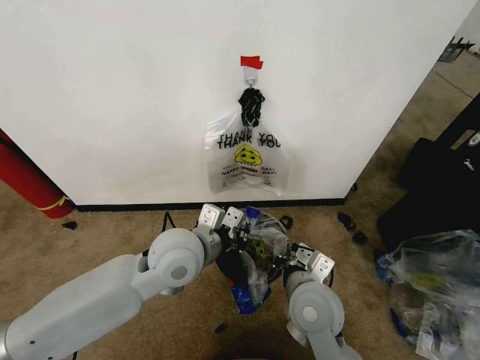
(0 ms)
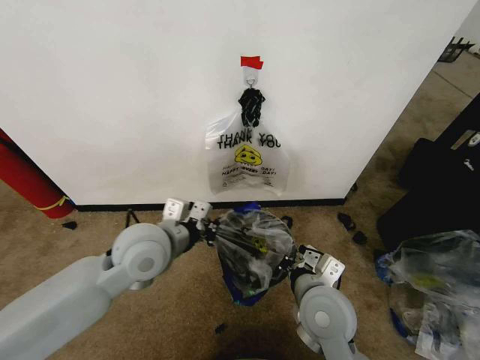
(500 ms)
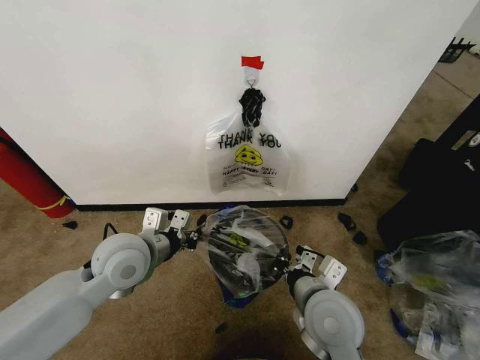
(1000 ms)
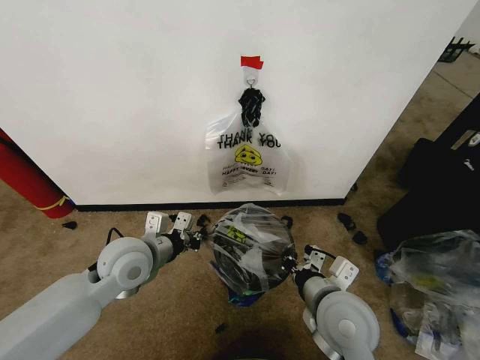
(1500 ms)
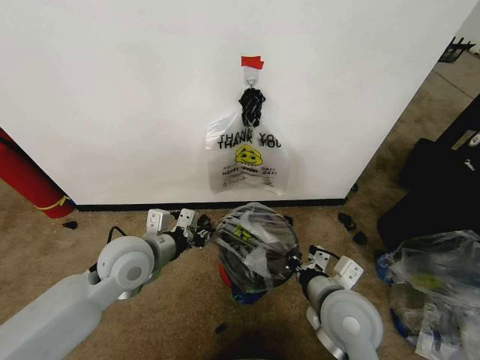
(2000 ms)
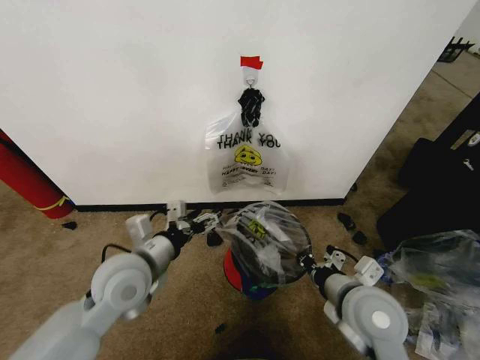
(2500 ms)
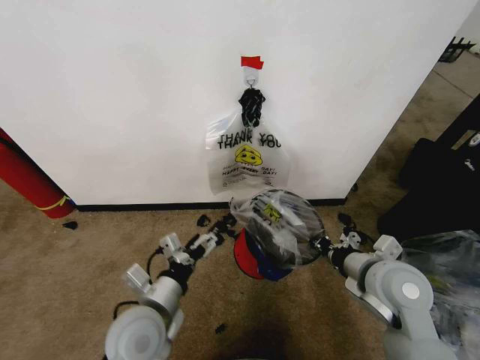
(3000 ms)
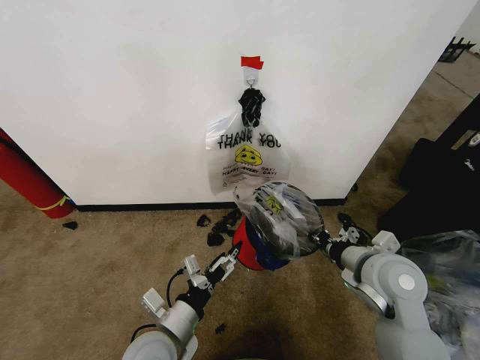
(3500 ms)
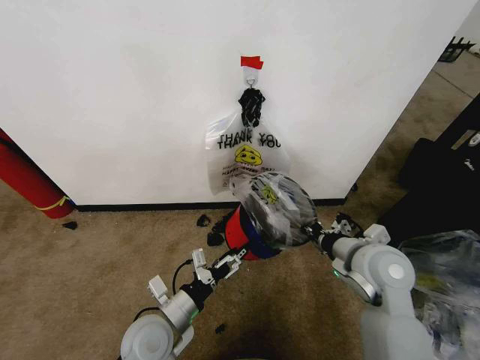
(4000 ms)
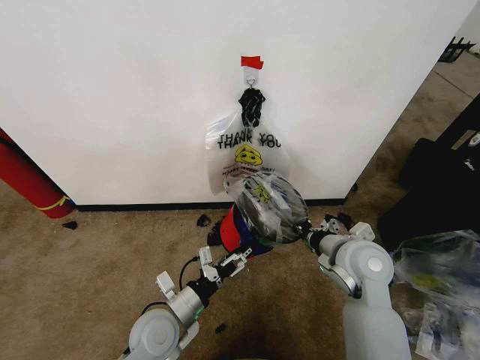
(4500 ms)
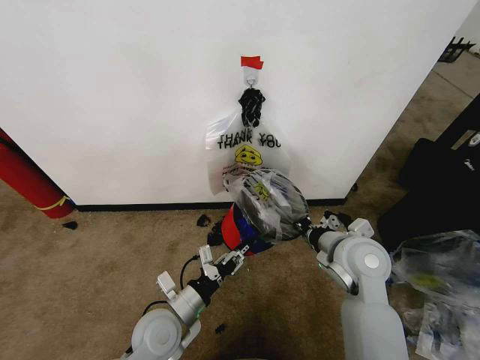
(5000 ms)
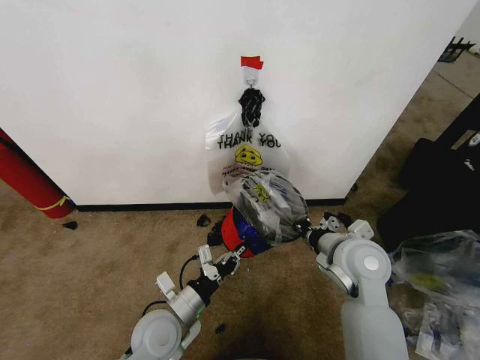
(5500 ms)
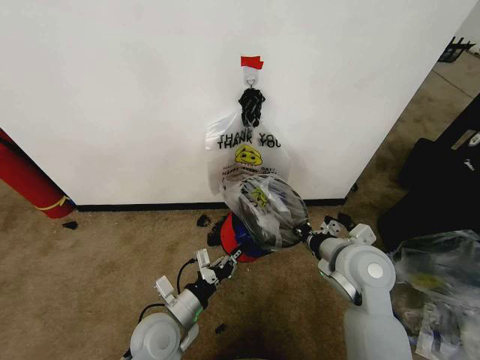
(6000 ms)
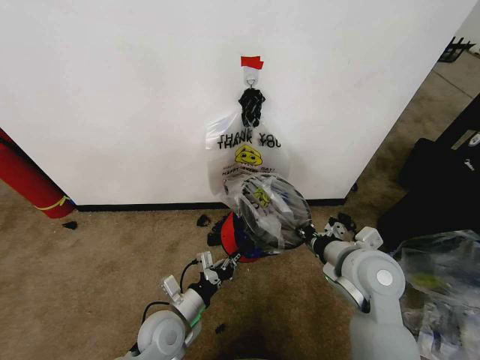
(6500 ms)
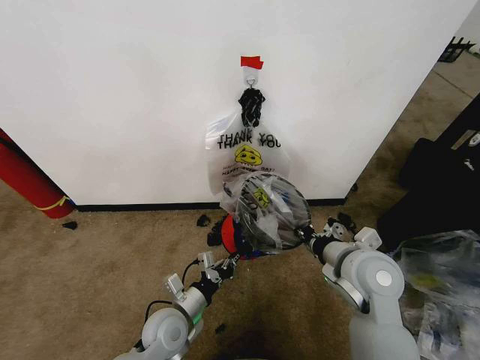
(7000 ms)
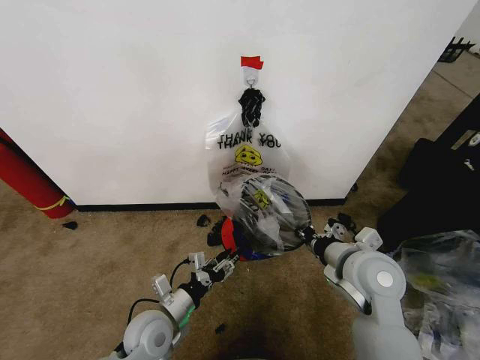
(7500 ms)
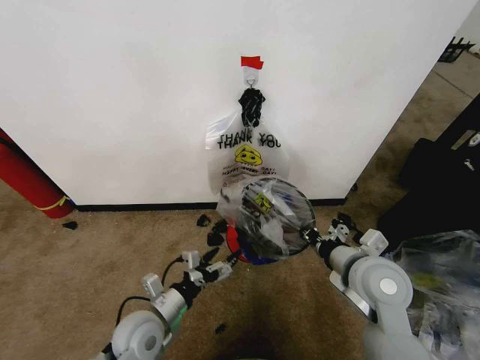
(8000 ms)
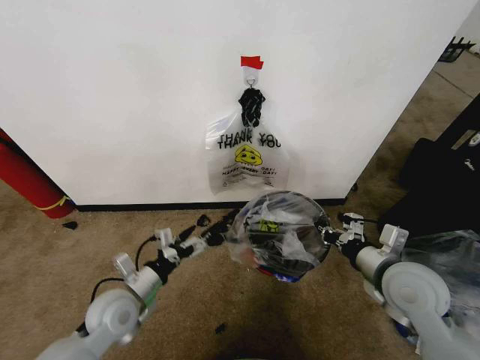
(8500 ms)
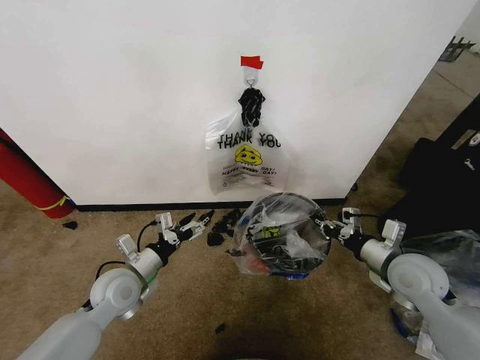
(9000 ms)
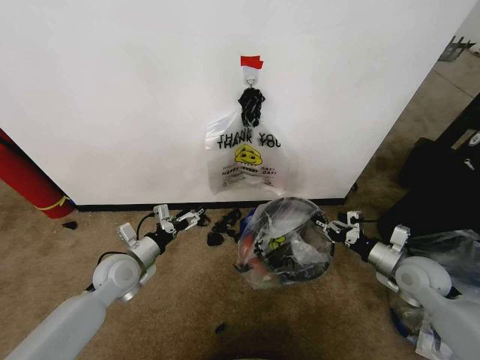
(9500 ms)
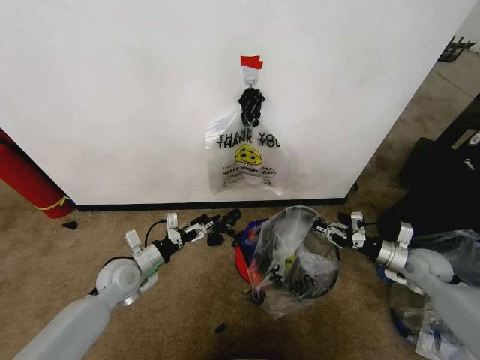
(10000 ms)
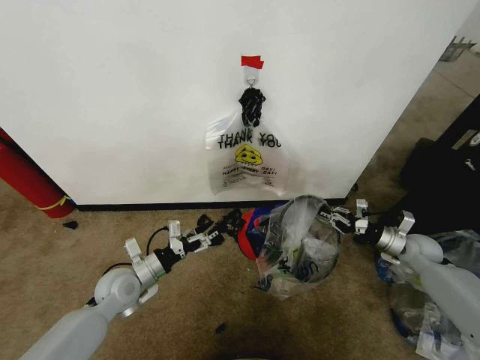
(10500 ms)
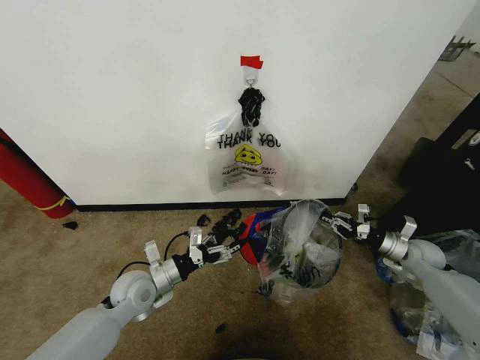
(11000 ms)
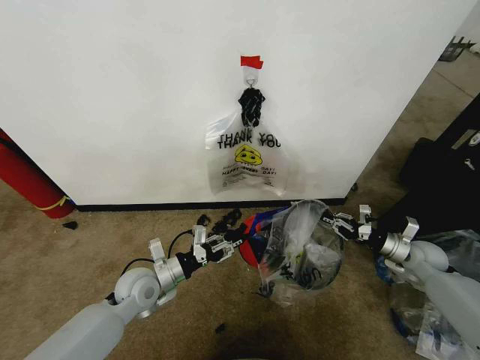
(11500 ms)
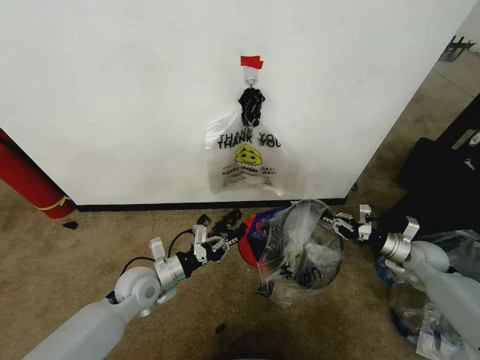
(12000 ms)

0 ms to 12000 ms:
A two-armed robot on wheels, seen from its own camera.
Task of the whole recording: Pick up the garbage bag from the wall and place it over the trash bin.
0 ms to 2000 ms: The left gripper heads to the left, covering approximately 10 cm, while the right gripper changes place by approximately 5 cm.
2000 ms to 4000 ms: The left gripper travels downward and backward by about 15 cm, and opens up. Meanwhile the right gripper shifts about 10 cm to the right and forward.
4000 ms to 6000 ms: The left gripper closes up.
6000 ms to 8000 ms: The left gripper opens.
8000 ms to 10000 ms: The right gripper heads to the right and downward, covering some 25 cm. Meanwhile the left gripper moves forward and to the left, approximately 15 cm.
10000 ms to 12000 ms: The left gripper travels to the right by about 5 cm, and closes its fingers, while the right gripper shifts by about 5 cm.

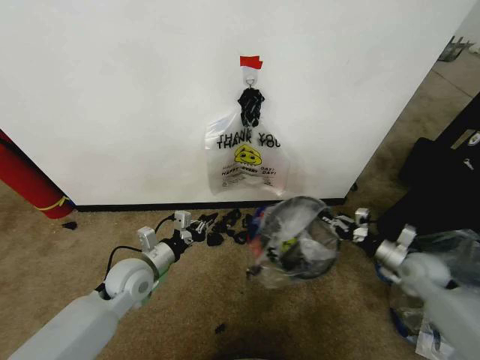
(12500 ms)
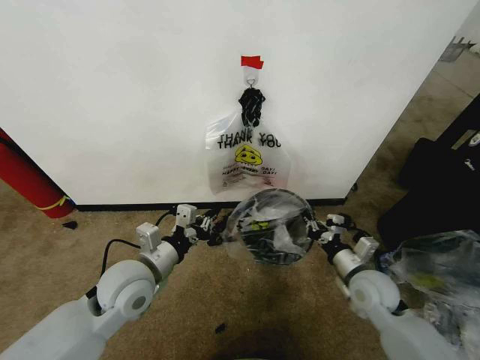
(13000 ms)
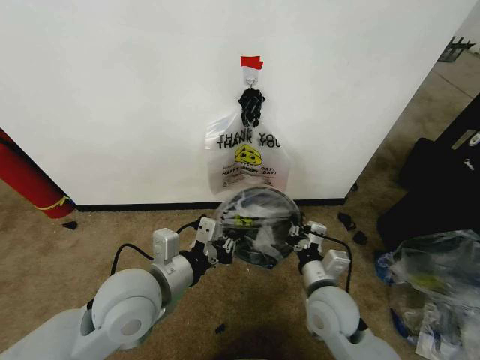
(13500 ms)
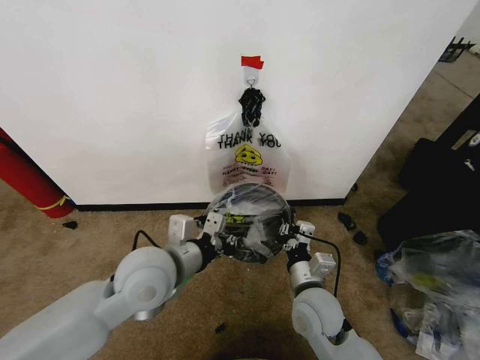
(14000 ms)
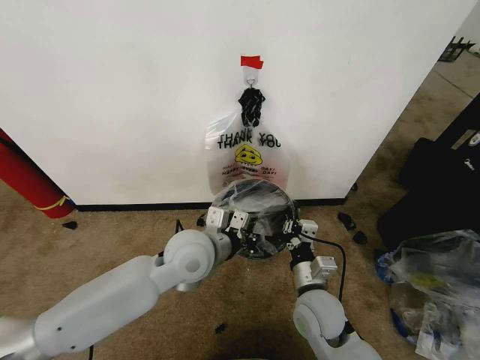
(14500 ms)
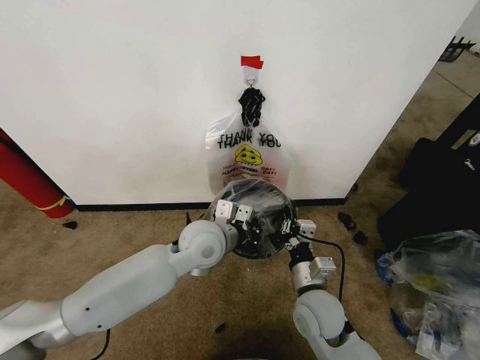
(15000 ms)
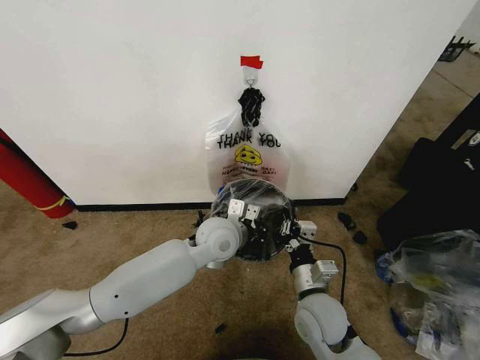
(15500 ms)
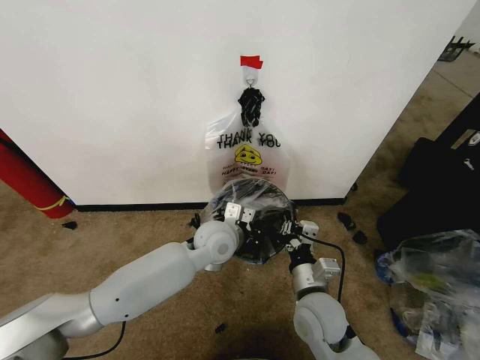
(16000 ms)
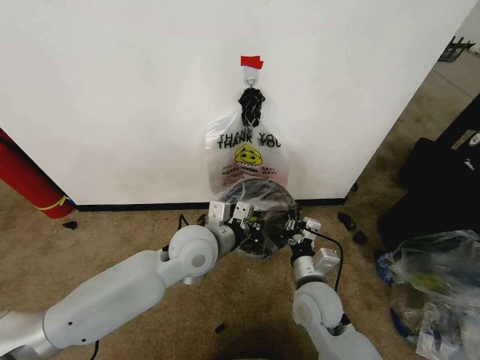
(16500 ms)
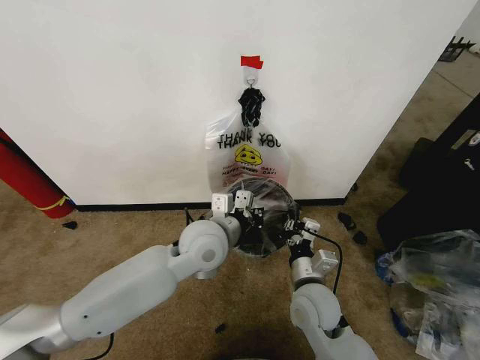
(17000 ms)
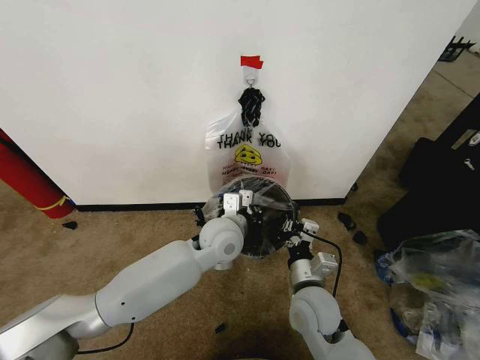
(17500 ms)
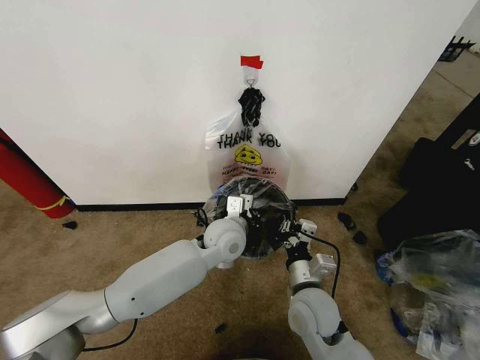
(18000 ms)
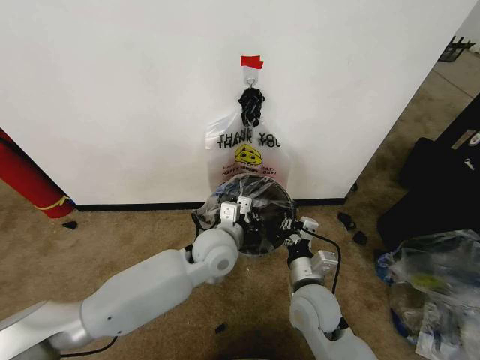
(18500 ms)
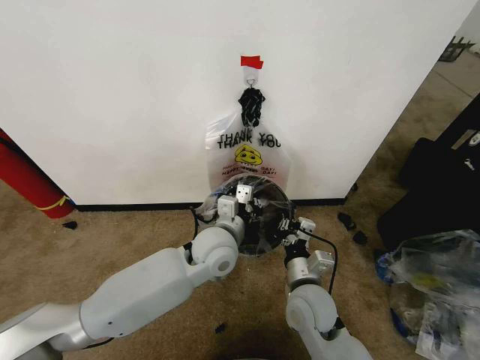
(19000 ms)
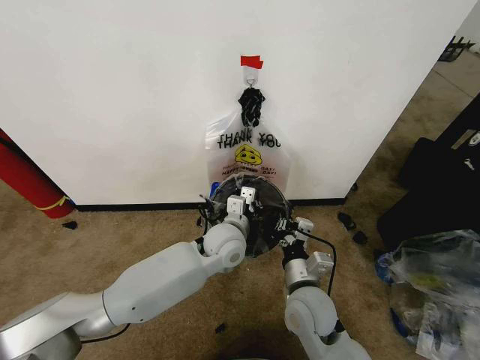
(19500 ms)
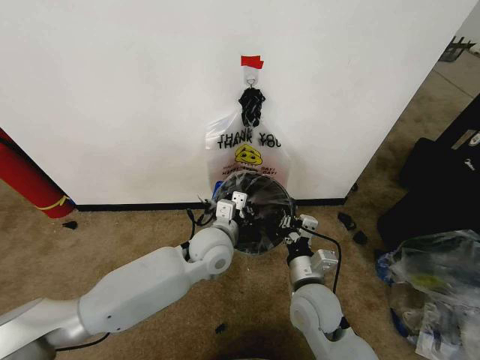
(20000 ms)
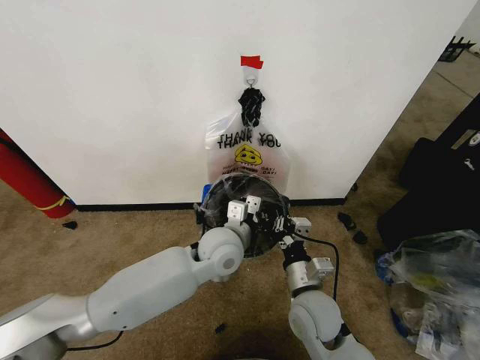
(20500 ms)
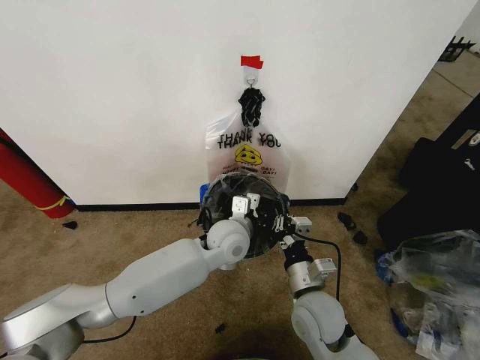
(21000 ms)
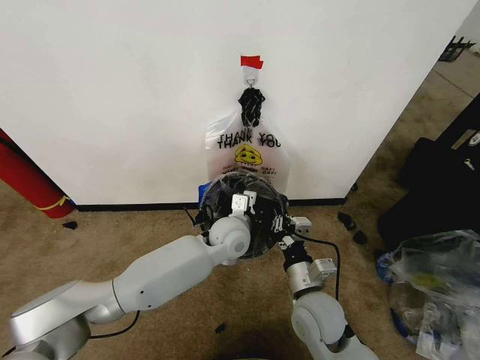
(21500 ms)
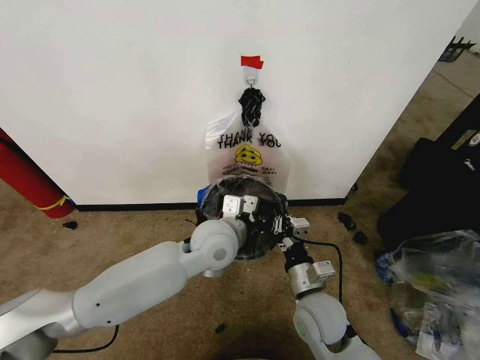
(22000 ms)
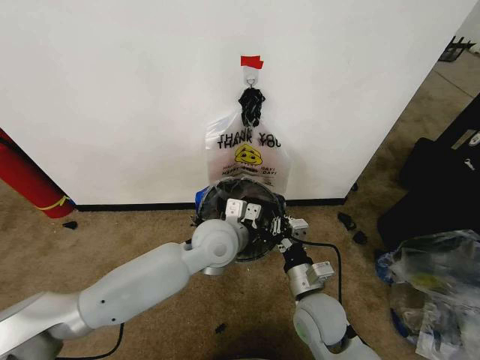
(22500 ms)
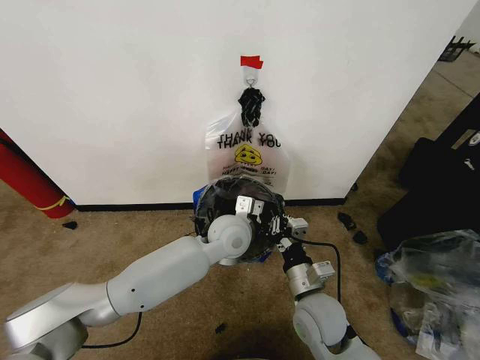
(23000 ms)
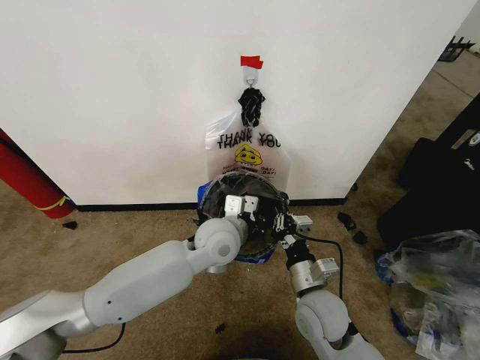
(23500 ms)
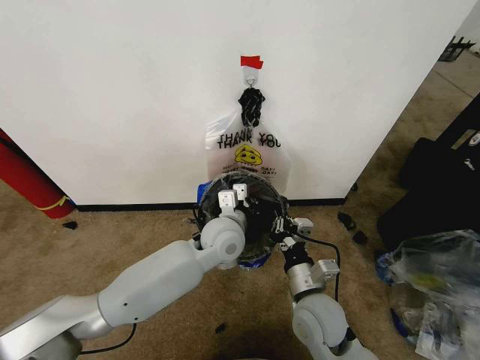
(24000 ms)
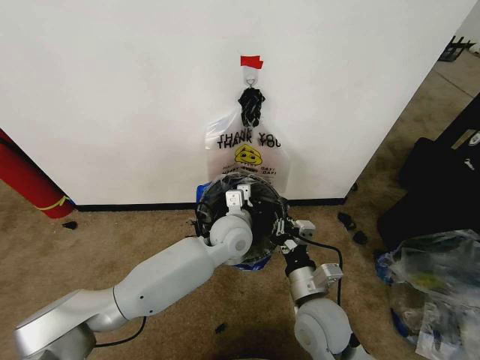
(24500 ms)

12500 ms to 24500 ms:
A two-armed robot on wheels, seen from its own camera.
Task of the whole recording: Pick up the garbage bag from the wall and place it over the trash bin.
12500 ms to 14500 ms: The left gripper is displaced to the right and upward by some 20 cm. Meanwhile the right gripper heads to the left, covering about 30 cm.
16500 ms to 18500 ms: The left gripper ends up approximately 5 cm from where it was.
18500 ms to 20500 ms: There are only small adjustments of the grippers.
20500 ms to 22500 ms: The grippers move only a little.
22500 ms to 24500 ms: The left gripper changes place by about 5 cm.

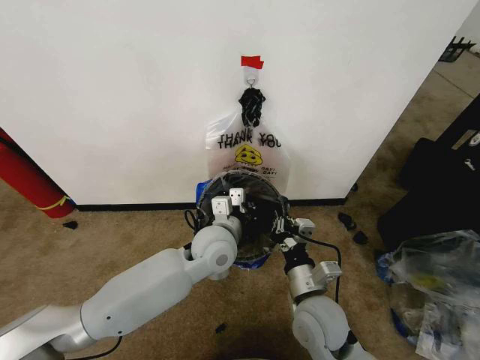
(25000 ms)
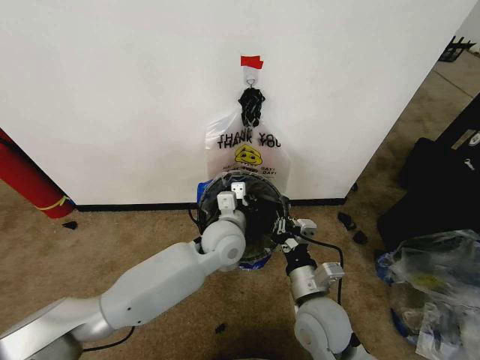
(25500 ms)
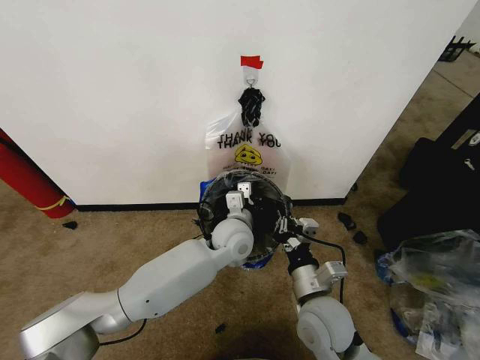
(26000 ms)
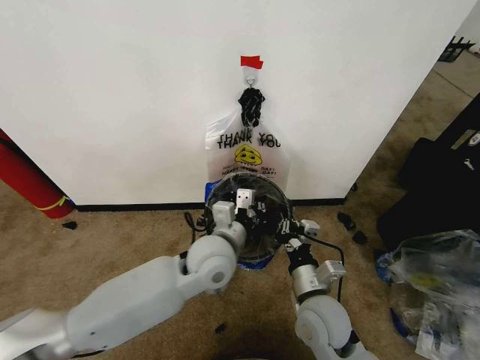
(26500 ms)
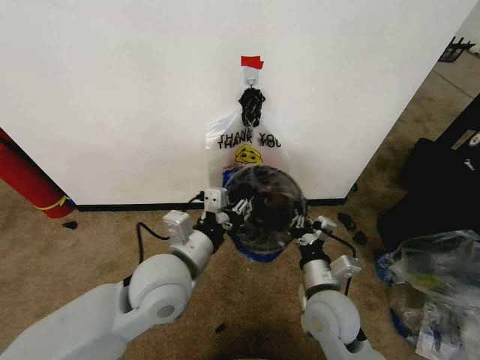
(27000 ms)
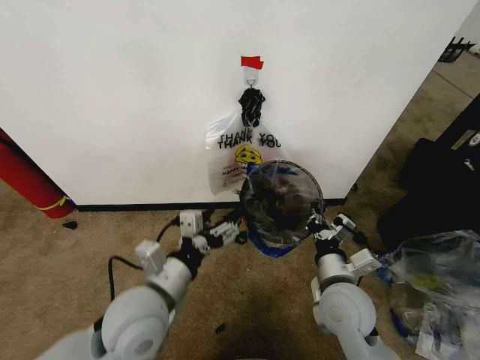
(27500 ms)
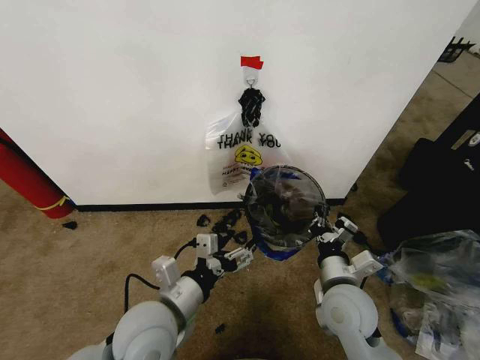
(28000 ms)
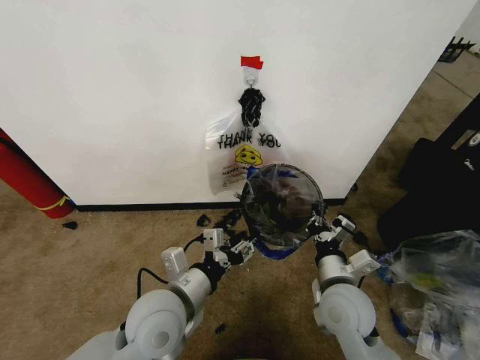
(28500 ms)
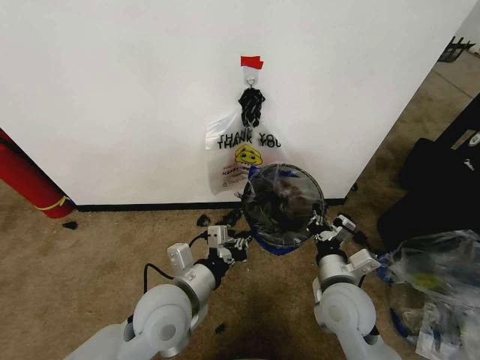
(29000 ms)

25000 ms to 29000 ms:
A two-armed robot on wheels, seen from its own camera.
Task of the whole recording: Pick up the garbage bag from the wall and place it over the trash bin.
25000 ms to 27000 ms: The left gripper heads backward, to the left and upward, covering some 15 cm, and opens up.
27000 ms to 29000 ms: The left gripper shifts some 5 cm downward, and closes.
